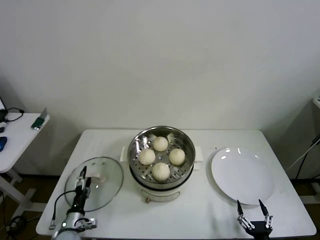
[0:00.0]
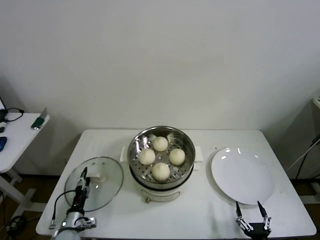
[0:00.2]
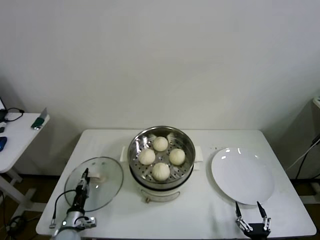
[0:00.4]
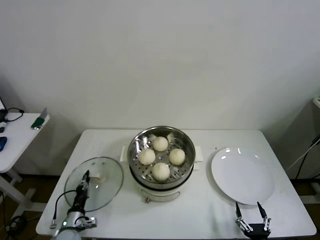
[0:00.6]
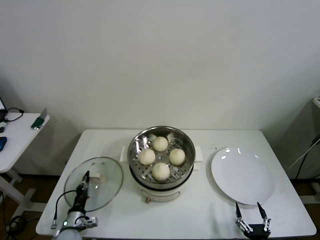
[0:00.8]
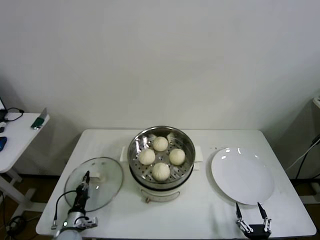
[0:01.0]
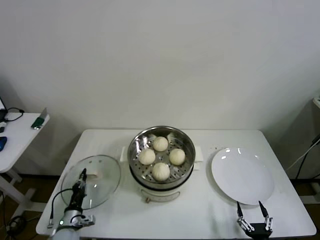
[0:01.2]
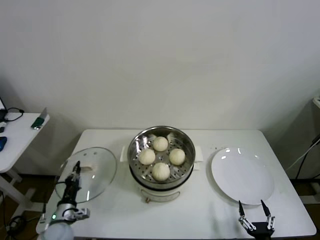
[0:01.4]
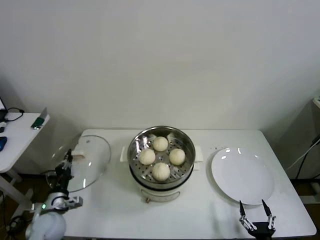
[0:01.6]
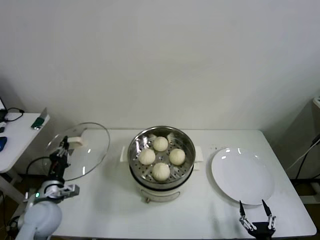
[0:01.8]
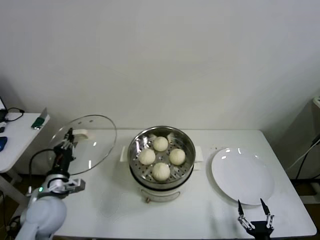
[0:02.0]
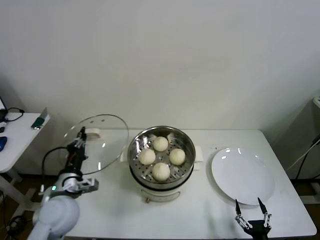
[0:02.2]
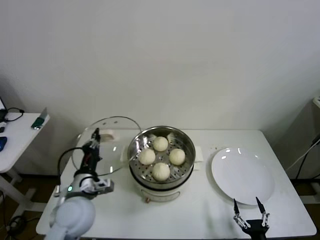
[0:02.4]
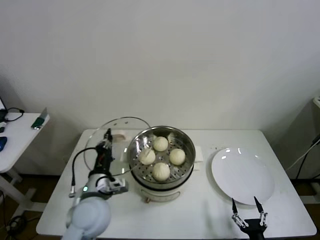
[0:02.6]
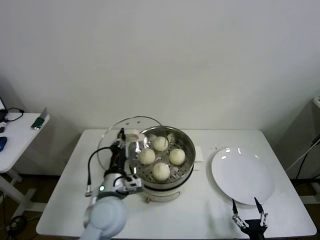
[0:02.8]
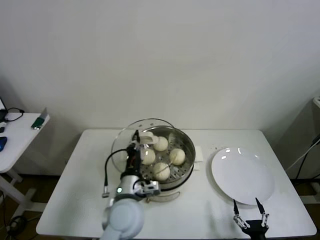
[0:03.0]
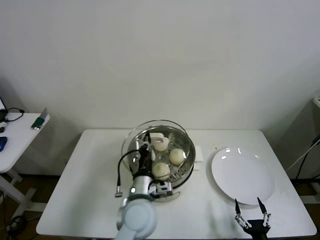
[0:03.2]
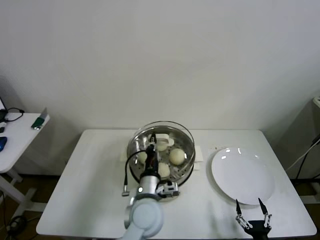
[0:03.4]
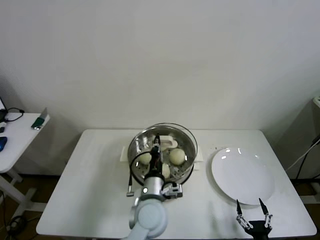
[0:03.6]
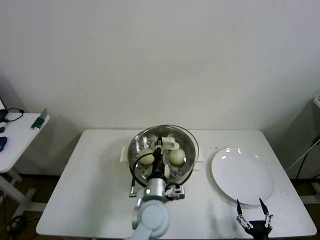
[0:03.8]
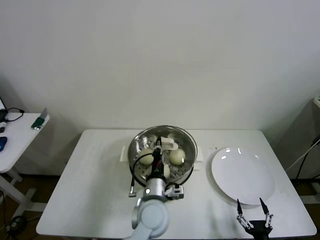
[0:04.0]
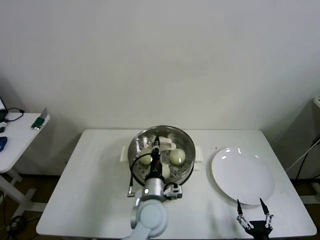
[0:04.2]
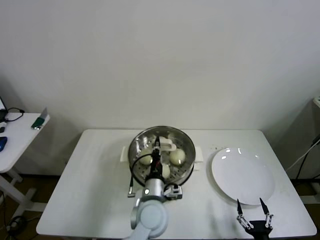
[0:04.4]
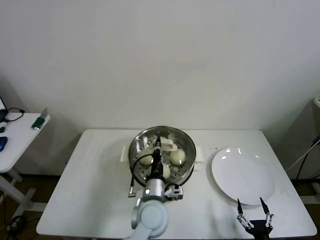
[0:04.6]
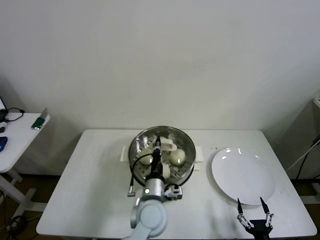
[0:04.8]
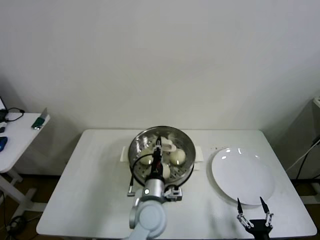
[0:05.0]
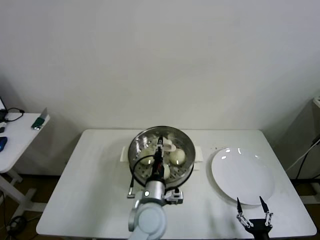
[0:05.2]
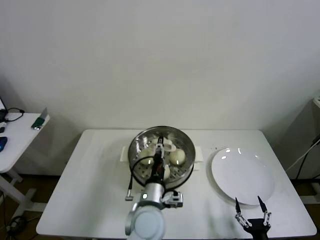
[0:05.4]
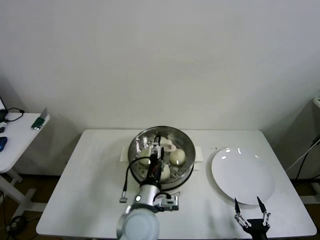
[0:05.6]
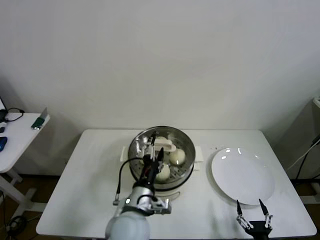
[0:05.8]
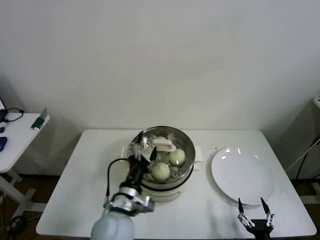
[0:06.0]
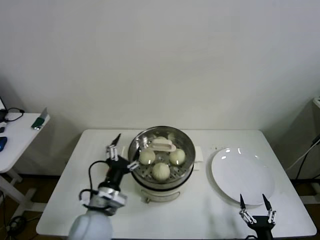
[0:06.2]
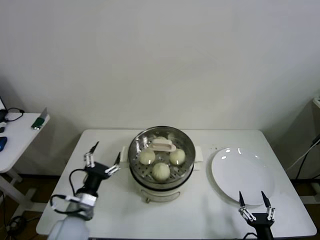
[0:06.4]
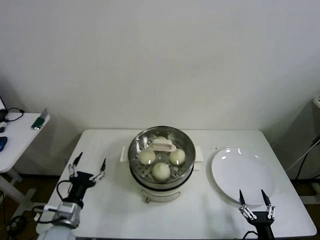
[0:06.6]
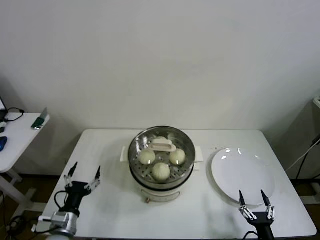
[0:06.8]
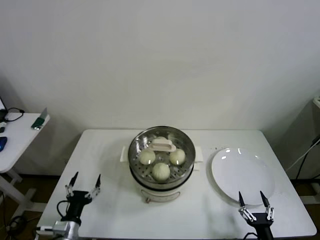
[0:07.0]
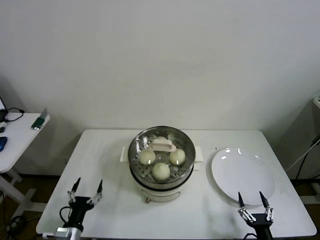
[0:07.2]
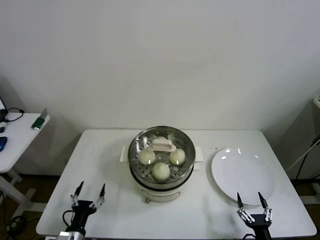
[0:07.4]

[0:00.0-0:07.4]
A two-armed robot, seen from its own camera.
Step, 0:00.8 to 0:05.8: Place the pot lid on the steamer with left gripper.
0:00.0 to 0:01.4: The left gripper closes its fingers.
0:01.4 to 0:03.0: The left gripper shifts about 30 cm to the right and upward.
0:03.0 to 0:04.4: The left gripper shifts some 10 cm to the right.
0:04.4 to 0:06.0: The left gripper moves to the left, approximately 5 cm, and opens.
0:06.0 to 0:07.4: The left gripper travels to the left and downward by approximately 25 cm.
